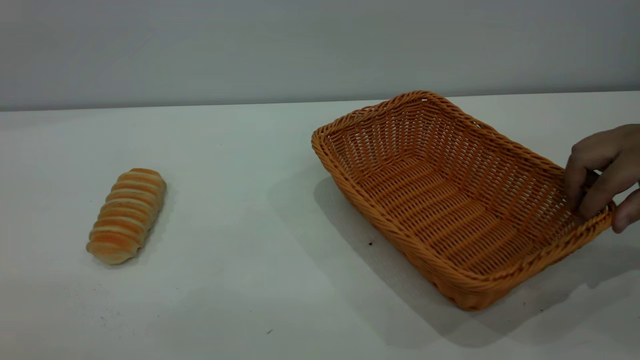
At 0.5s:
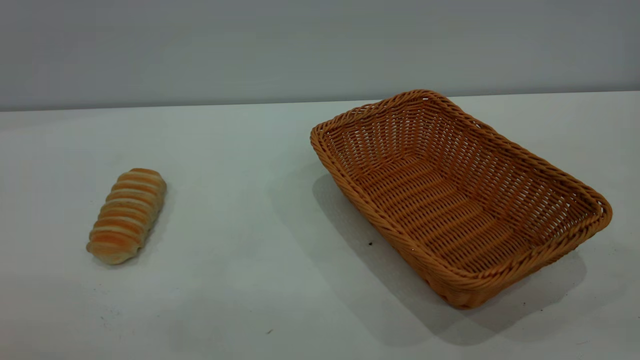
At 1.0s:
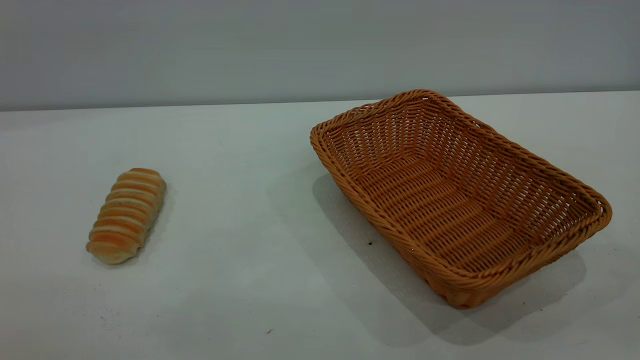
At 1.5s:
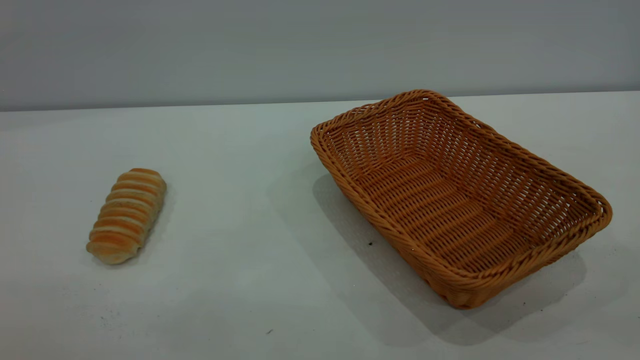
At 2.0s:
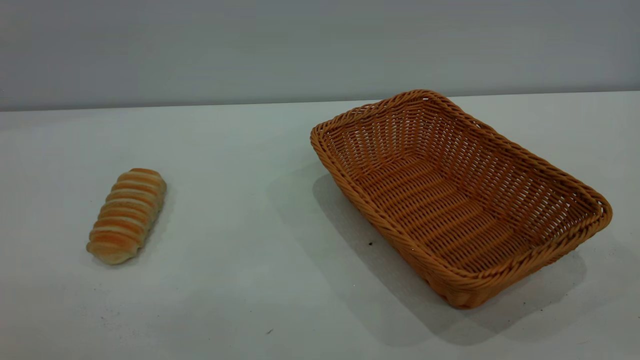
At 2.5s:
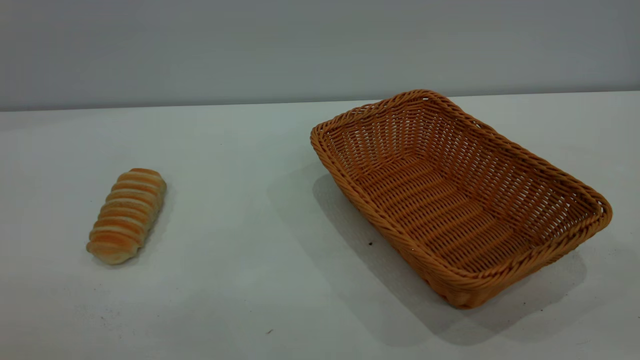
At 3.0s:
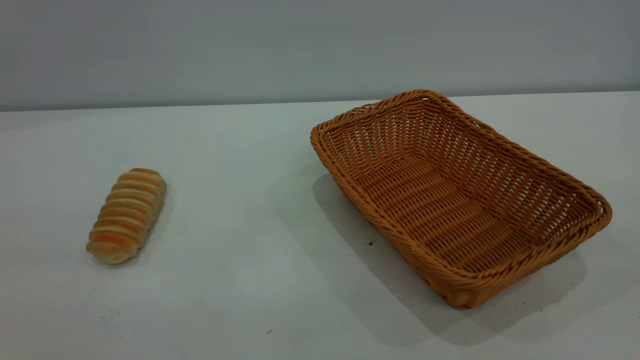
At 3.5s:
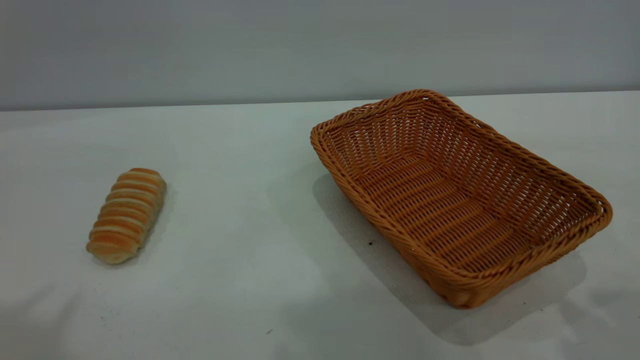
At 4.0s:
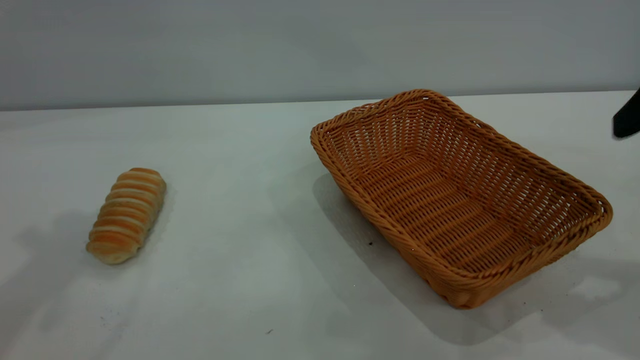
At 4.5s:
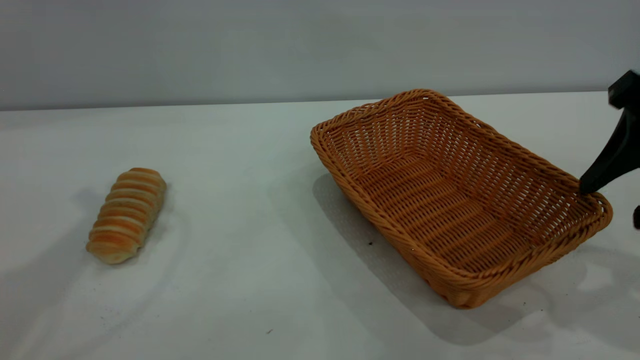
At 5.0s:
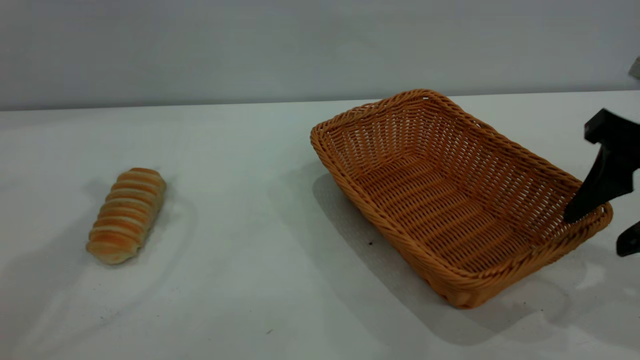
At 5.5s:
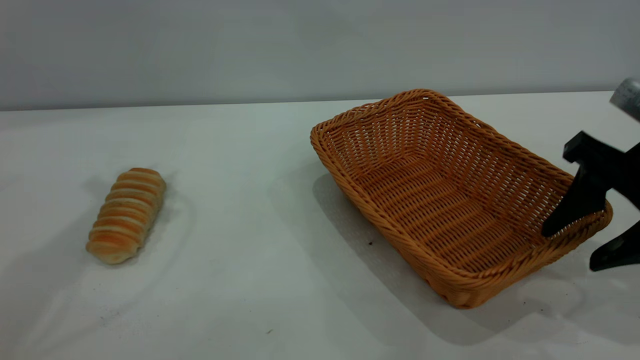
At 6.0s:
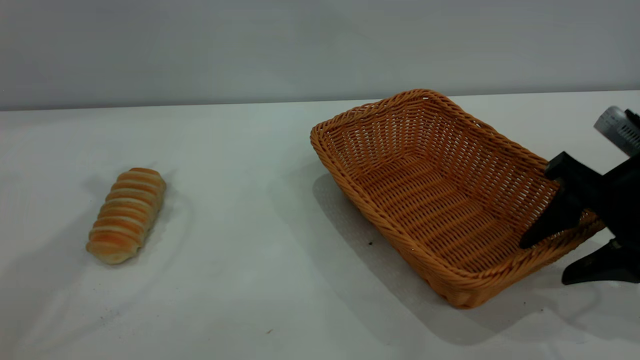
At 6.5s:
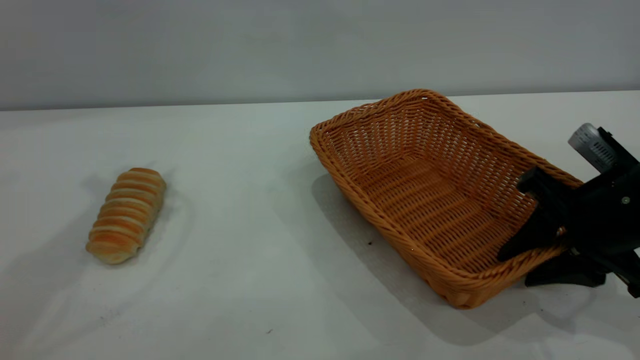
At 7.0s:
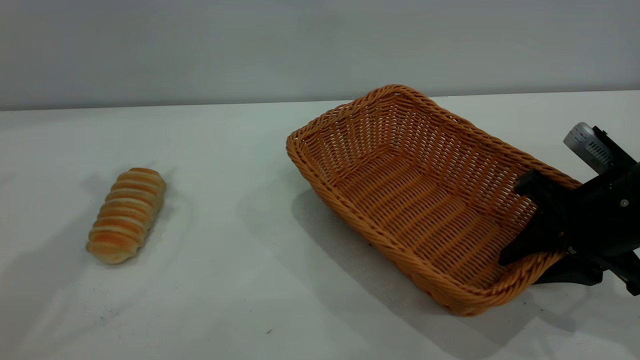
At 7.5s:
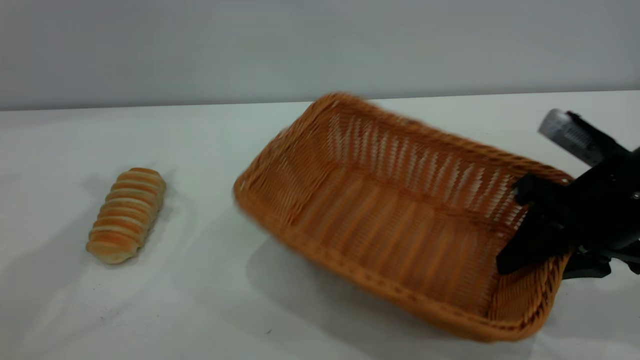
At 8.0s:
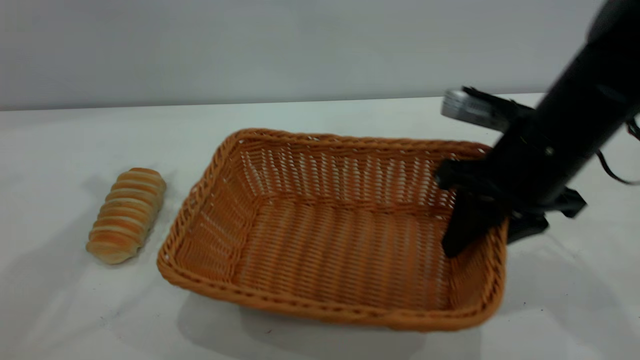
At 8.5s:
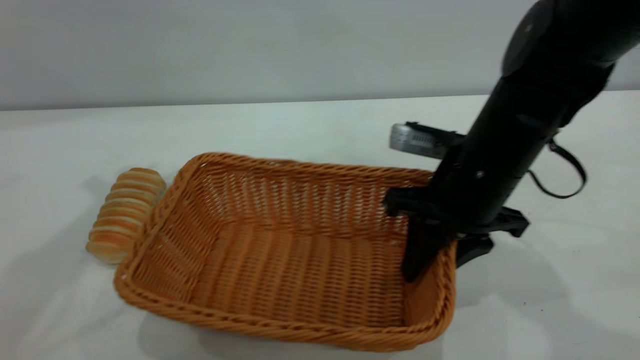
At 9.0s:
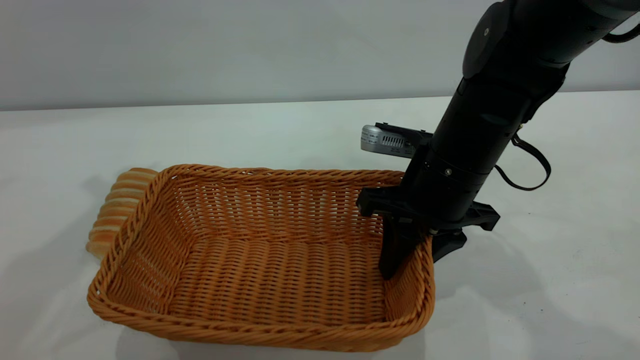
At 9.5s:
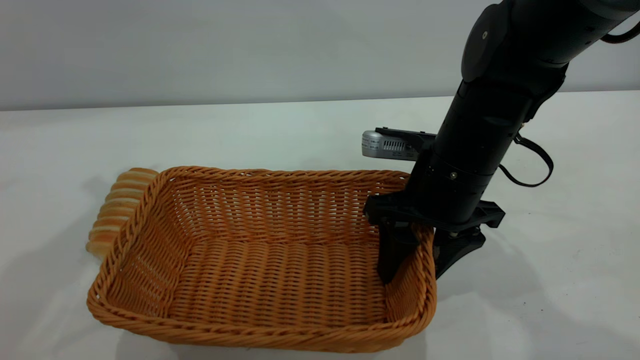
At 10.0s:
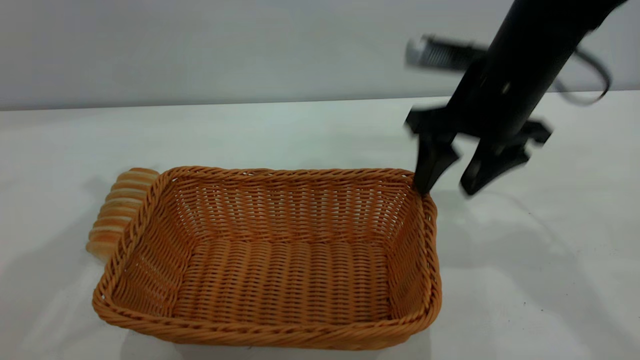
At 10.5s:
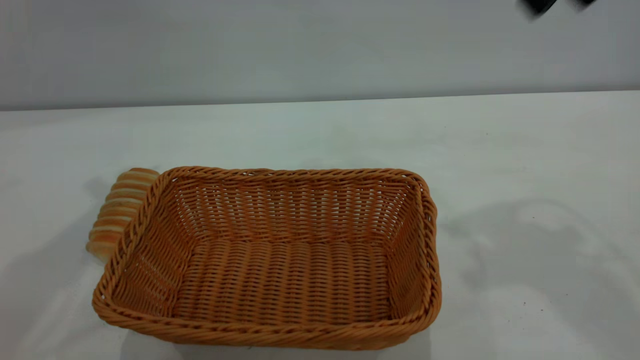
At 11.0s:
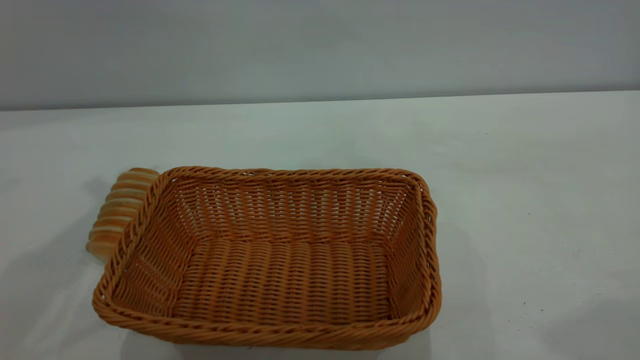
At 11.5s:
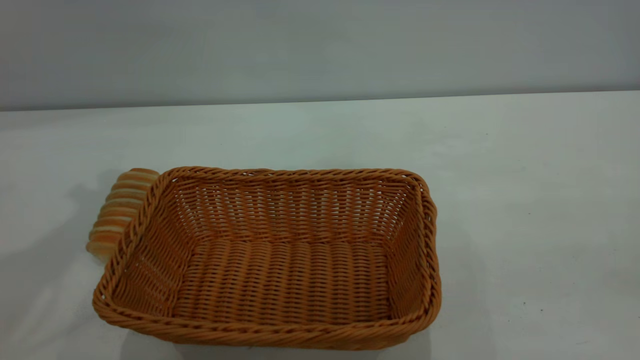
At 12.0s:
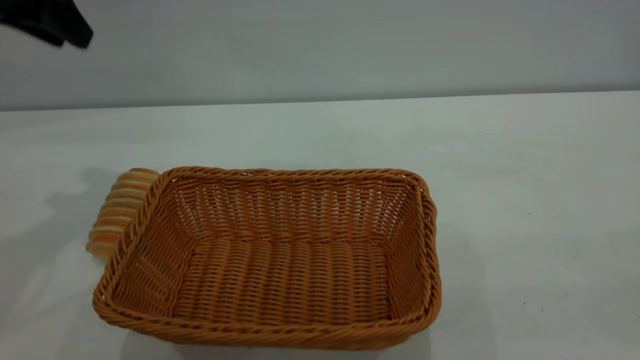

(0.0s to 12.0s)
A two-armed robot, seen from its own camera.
Task of the whole recording: One hand grasps the yellow basket and places it in the middle of the table, while the other hand picks up the long bread and puts it into the yellow basket.
Step, 0.0s - 10.0s: Move the basket to the center of view.
0.0s - 2.0s: Neither gripper changes place.
4.0s - 6.0s: The right gripper heads downward, covering roughly 15 cm.
6.0s - 8.0s: The right gripper goes some 10 cm to the left, and closes up.
8.0s - 10.0s: The right gripper moves some 5 cm, and opens up.
10.0s - 12.0s: The right gripper travels backward by some 35 cm, and closes, while the left gripper travels downward by some 10 cm.

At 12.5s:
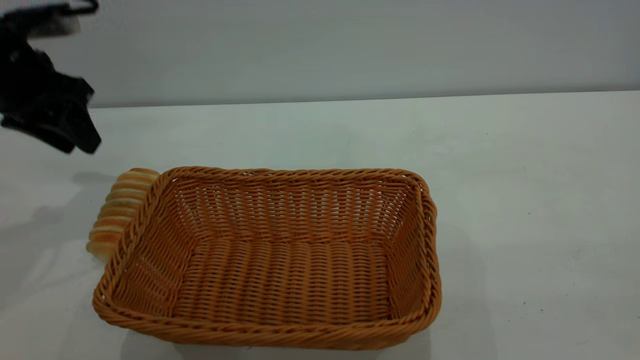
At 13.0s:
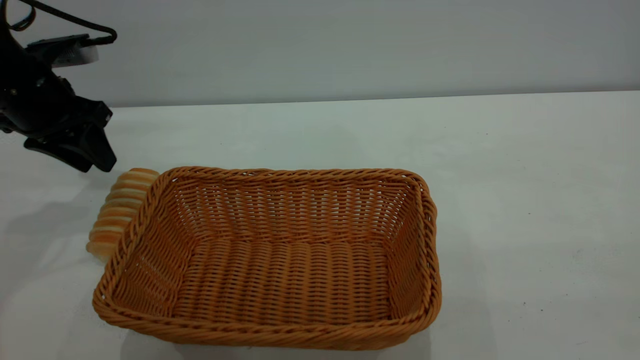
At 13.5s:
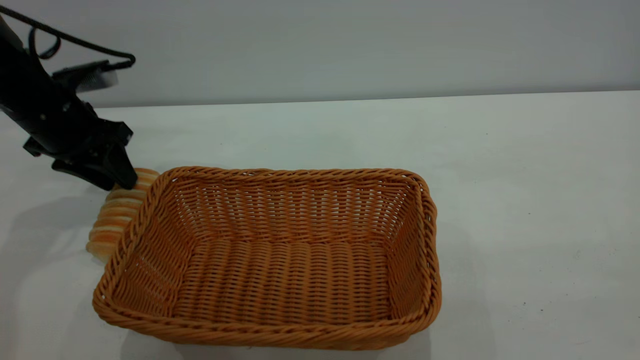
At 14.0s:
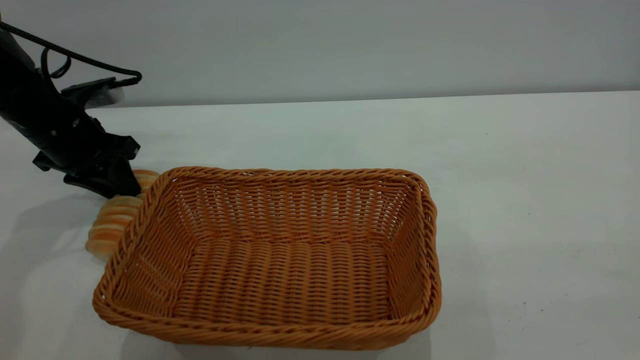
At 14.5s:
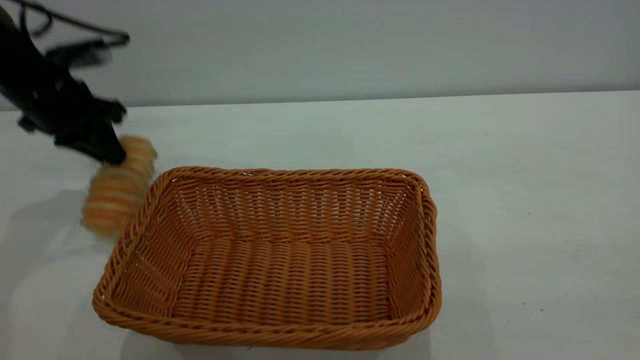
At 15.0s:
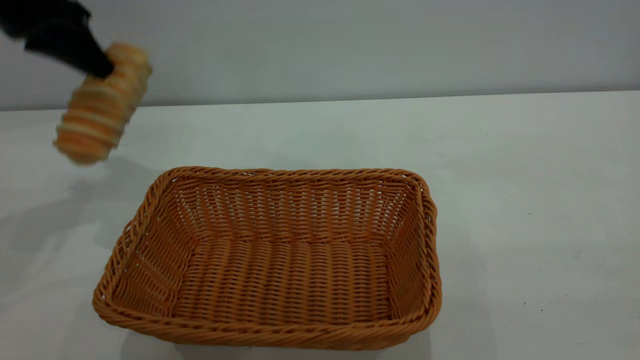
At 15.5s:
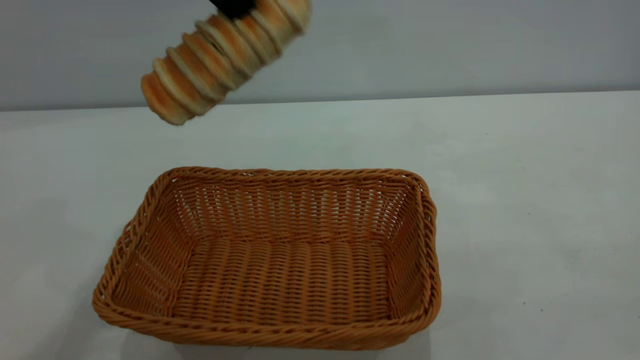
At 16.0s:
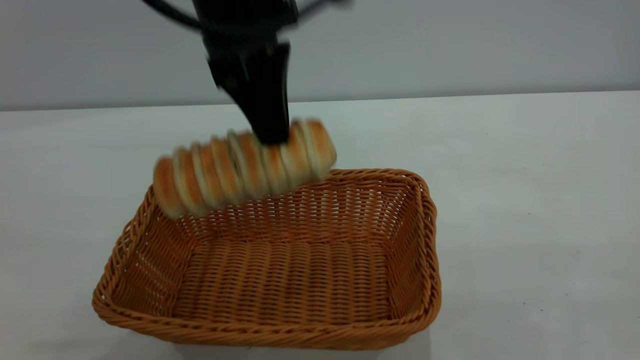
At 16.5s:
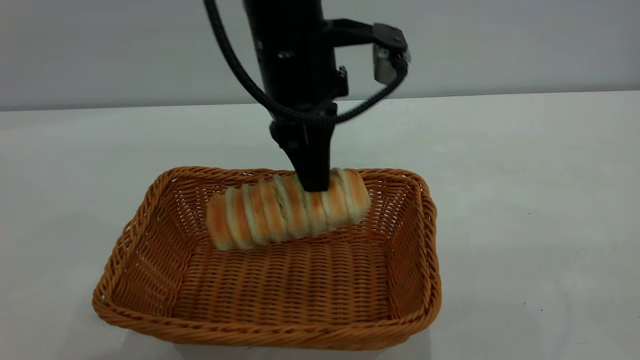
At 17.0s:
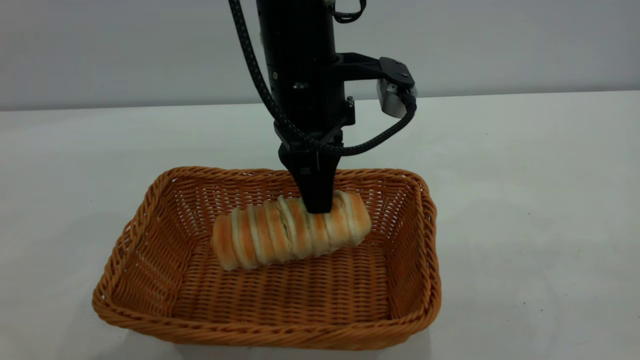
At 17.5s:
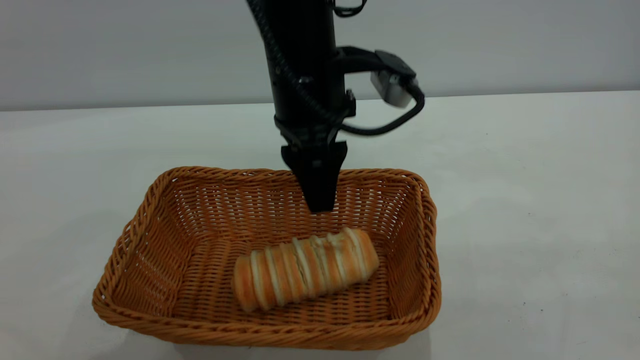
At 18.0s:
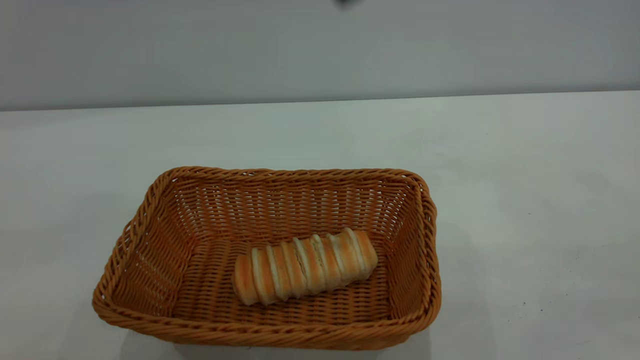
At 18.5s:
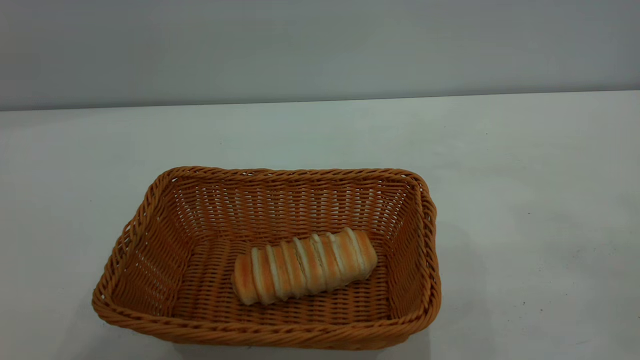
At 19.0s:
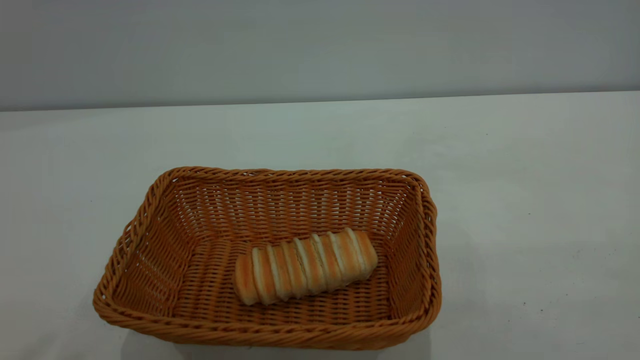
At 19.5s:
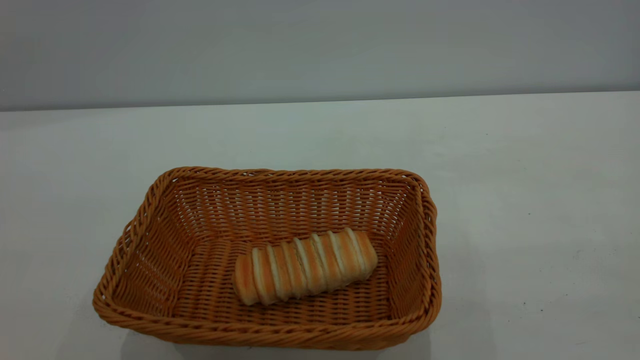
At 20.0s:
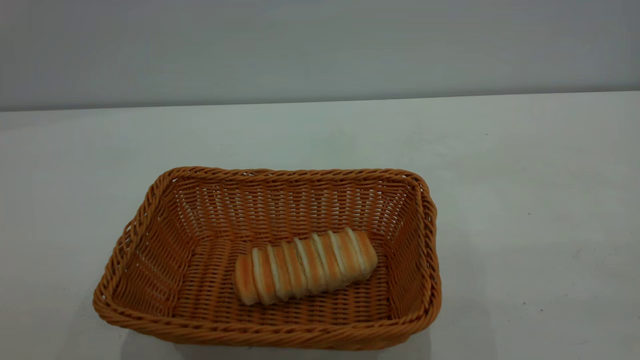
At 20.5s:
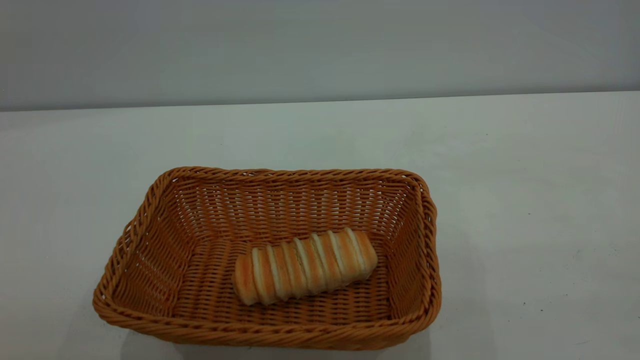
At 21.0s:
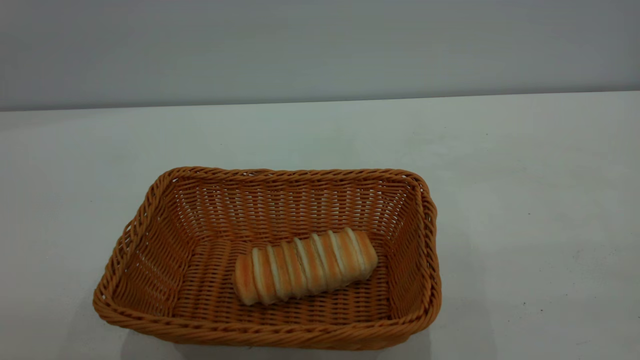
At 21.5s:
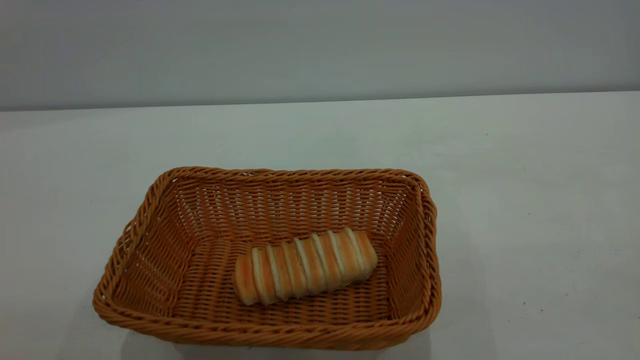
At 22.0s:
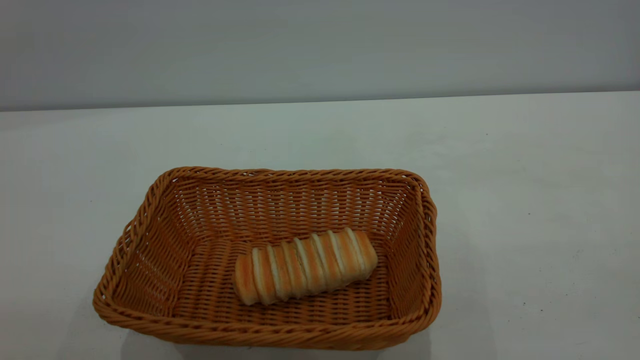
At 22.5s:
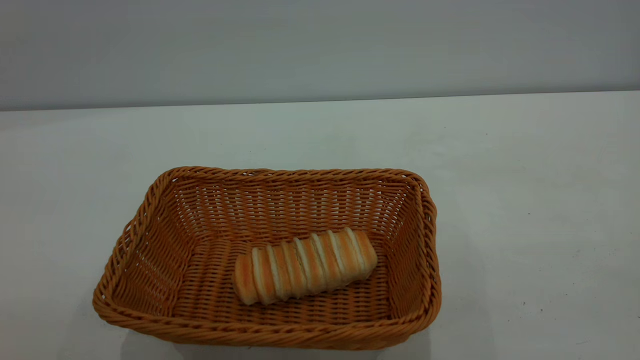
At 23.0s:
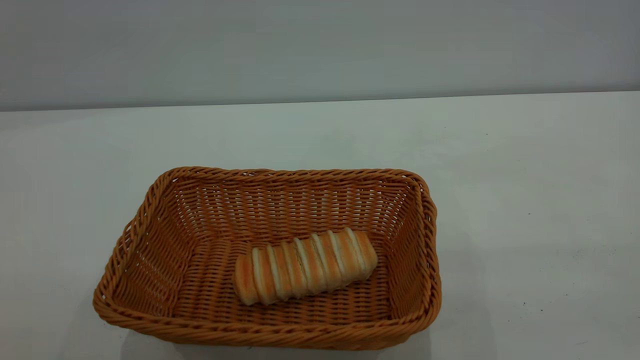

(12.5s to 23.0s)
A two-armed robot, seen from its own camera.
Task of the whole recording: One hand grasps the yellow basket and places it in the middle of the table, while the other hand picks up the long bread and puts it into the yellow basket.
Step, 15.0s - 17.5s: place the bread into the basket.
12.5s - 14.5s: The left gripper travels downward and back again, roughly 10 cm each way, and closes.
14.5s - 16.5s: The left gripper travels to the right by some 30 cm.
16.5s - 19.0s: The left gripper is displaced upward, backward and to the left by approximately 50 cm, and opens its fingers.
